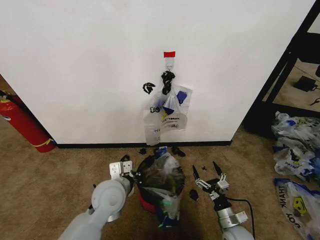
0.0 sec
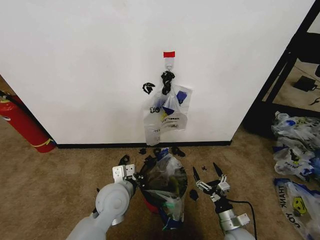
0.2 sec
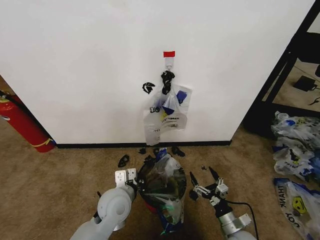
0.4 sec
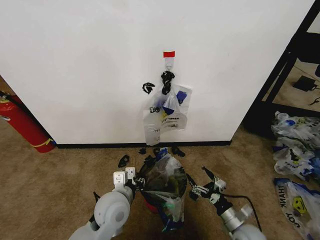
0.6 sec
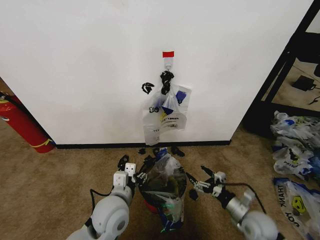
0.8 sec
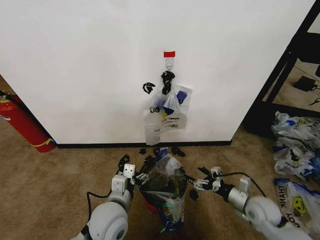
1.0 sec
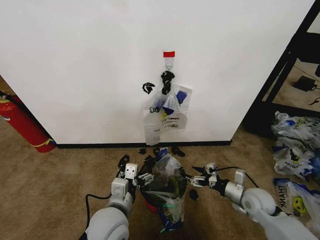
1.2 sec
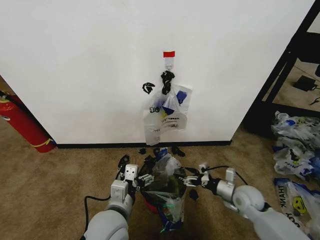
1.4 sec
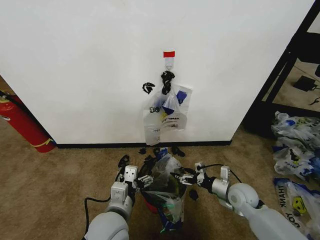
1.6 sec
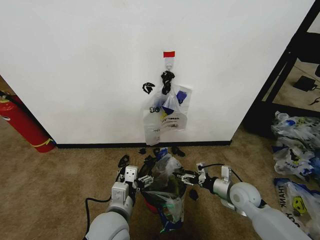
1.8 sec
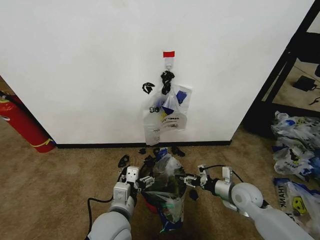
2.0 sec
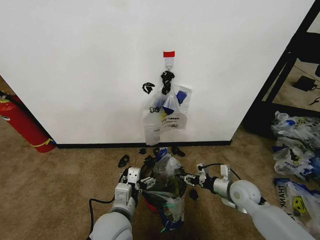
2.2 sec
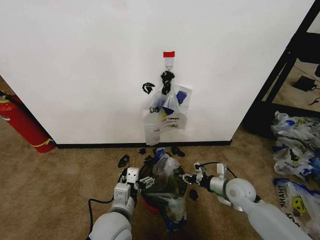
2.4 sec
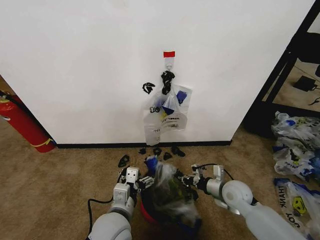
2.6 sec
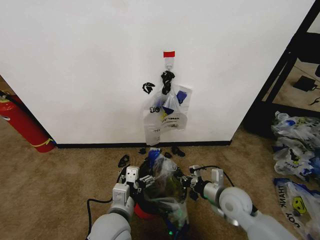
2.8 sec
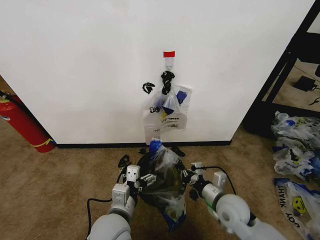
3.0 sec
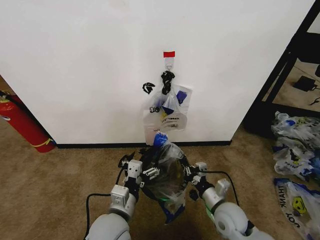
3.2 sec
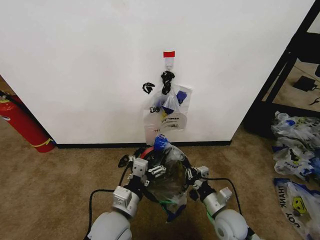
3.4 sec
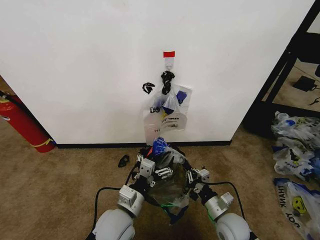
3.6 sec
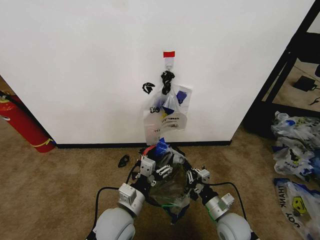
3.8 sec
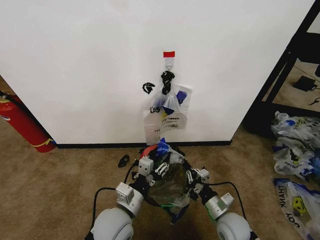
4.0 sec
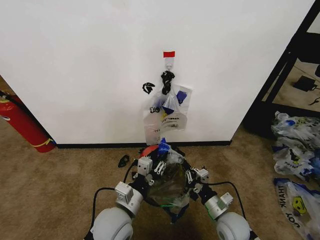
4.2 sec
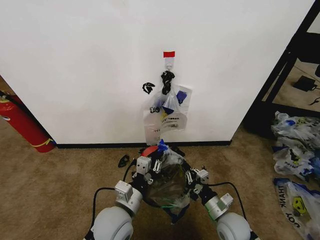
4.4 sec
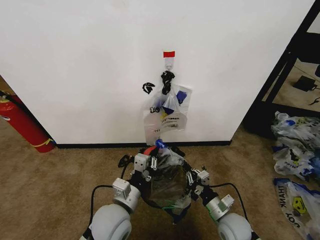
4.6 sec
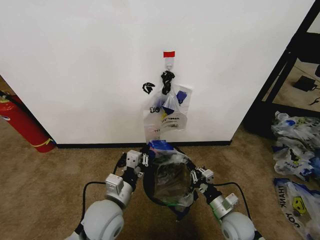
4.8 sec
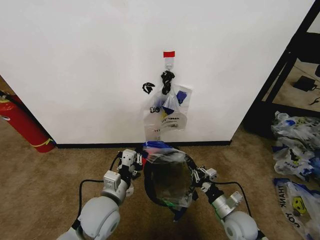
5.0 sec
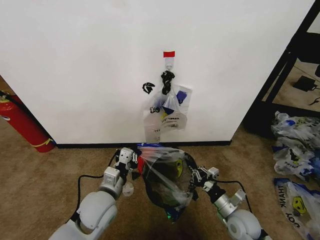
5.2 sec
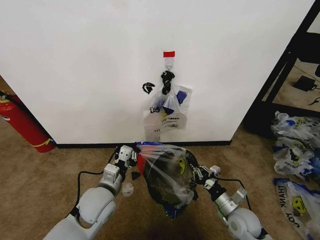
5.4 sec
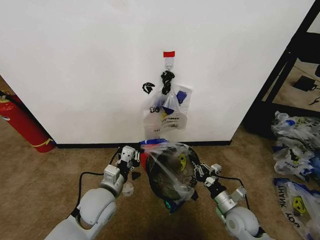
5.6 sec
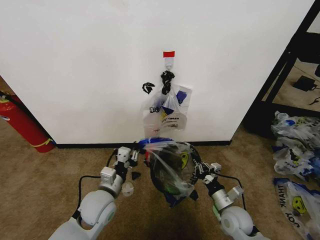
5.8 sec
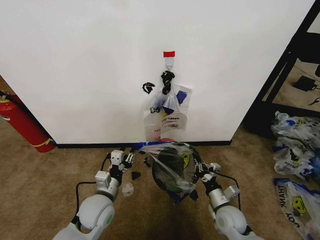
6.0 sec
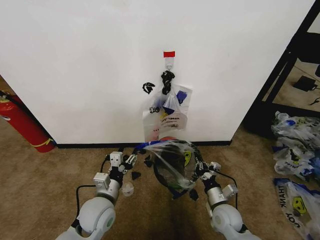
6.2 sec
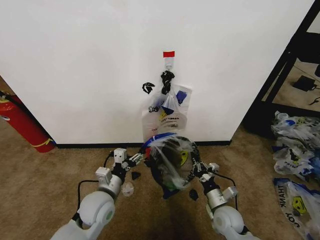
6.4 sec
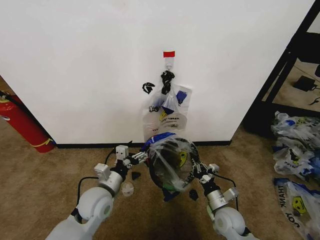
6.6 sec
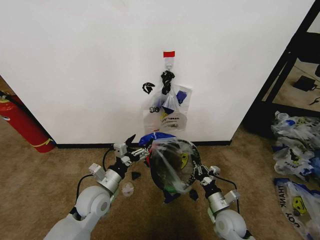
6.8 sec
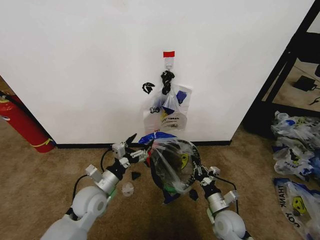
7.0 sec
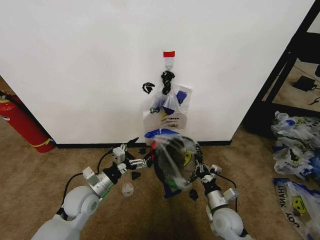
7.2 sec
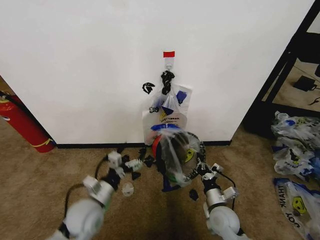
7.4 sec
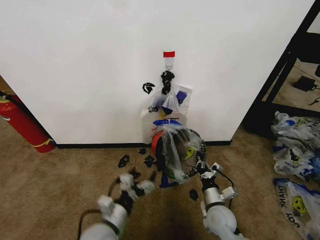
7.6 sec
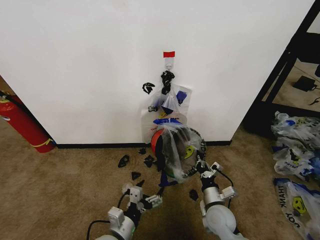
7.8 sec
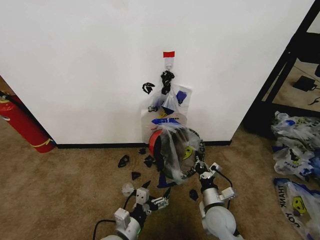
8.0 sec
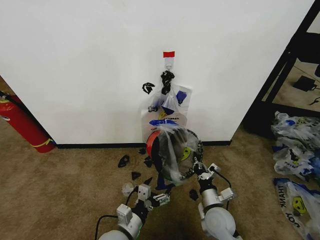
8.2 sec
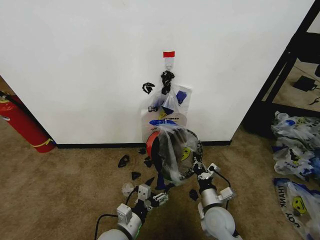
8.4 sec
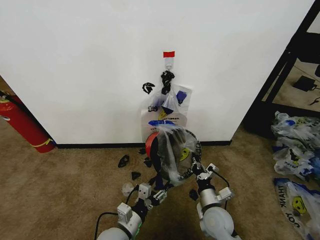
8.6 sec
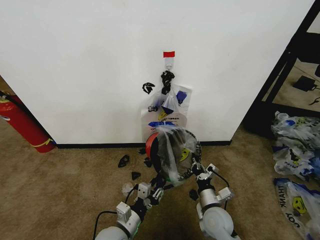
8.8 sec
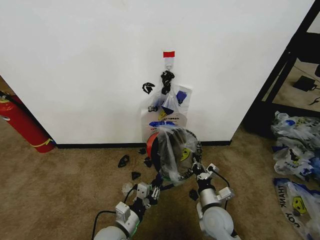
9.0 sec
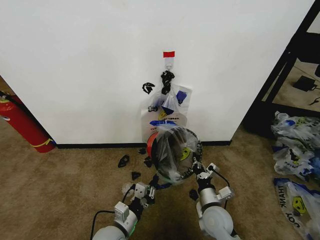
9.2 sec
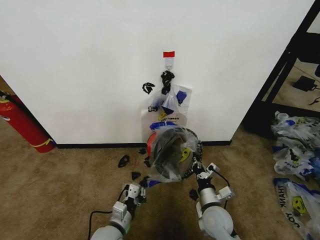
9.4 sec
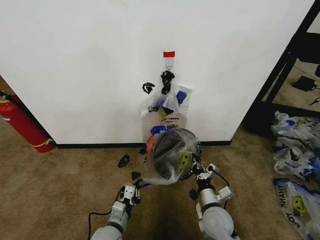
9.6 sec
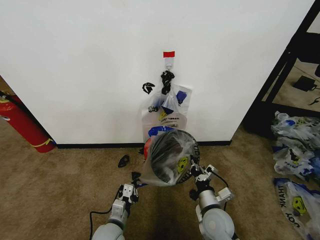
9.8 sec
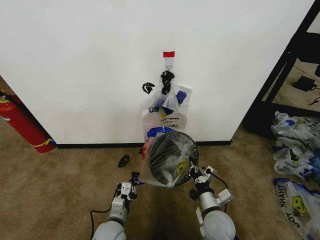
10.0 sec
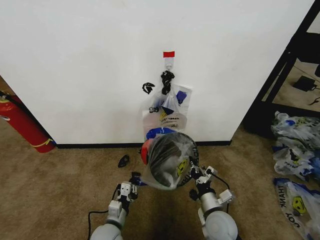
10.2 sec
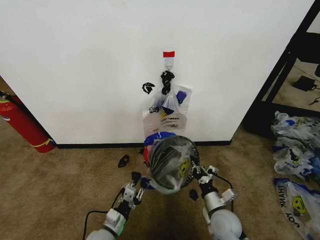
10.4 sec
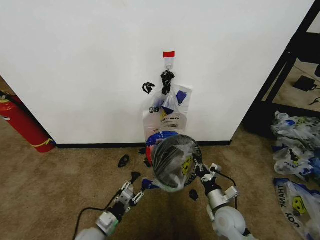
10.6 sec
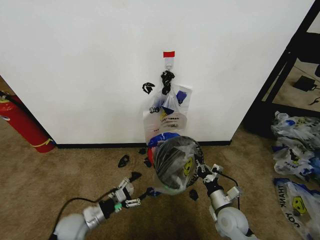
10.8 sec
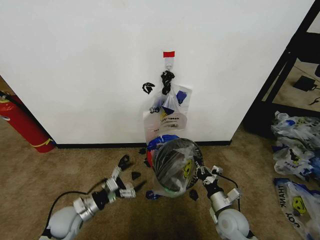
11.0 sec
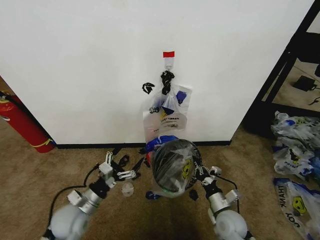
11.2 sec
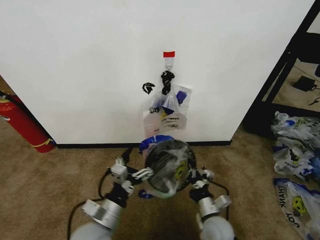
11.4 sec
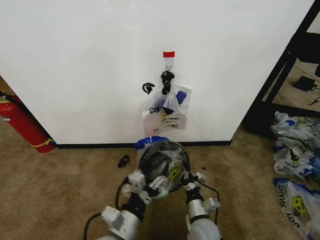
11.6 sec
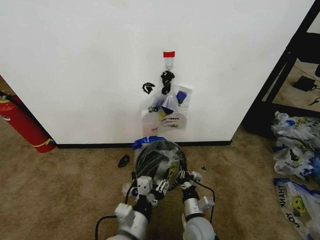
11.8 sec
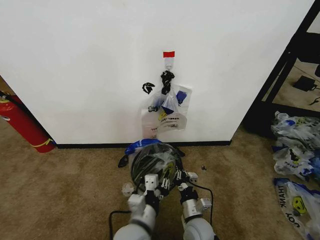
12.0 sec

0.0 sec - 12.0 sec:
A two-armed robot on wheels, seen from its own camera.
Task of the whole recording: Pick up the garbage bag from the wall and place it over the trash bin.
0.0 sec - 1.6 sec: The left gripper travels backward by roughly 10 cm, and opens its fingers, while the right gripper shifts approximately 15 cm forward and upward.
1.6 sec - 3.0 sec: The right gripper moves to the left and backward, about 10 cm, and closes.
3.0 sec - 4.4 sec: The left gripper closes; the right gripper shifts approximately 5 cm downward.
4.4 sec - 6.0 sec: The left gripper moves to the left and forward, roughly 10 cm.
6.0 sec - 7.6 sec: The left gripper travels backward by roughly 10 cm, and opens its fingers.
7.6 sec - 9.0 sec: The left gripper shifts by approximately 5 cm, and closes its fingers.
9.0 sec - 10.4 sec: The left gripper moves downward and to the left, roughly 10 cm.
10.4 sec - 12.0 sec: The right gripper heads to the left, covering roughly 10 cm. Meanwhile the left gripper is displaced upward and to the right by roughly 20 cm, and opens, then closes once more.

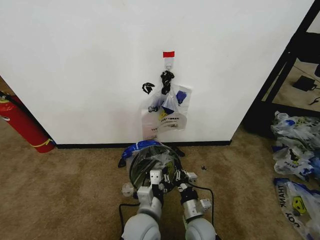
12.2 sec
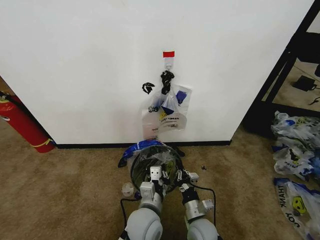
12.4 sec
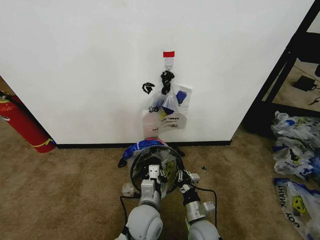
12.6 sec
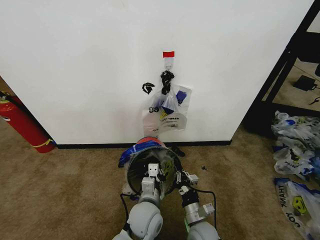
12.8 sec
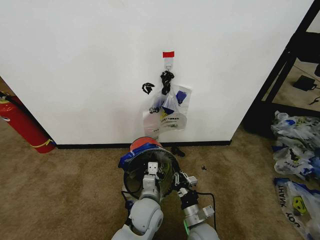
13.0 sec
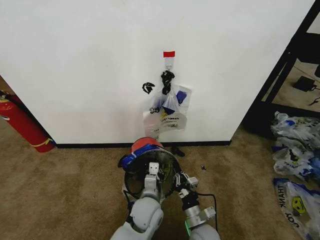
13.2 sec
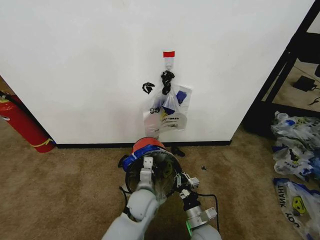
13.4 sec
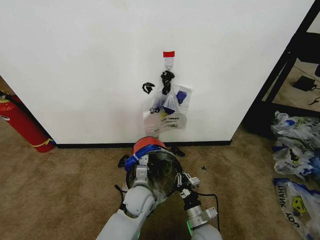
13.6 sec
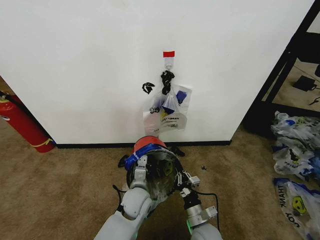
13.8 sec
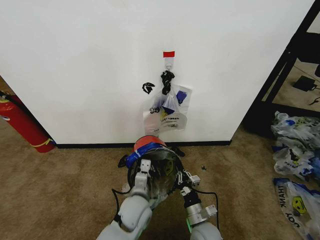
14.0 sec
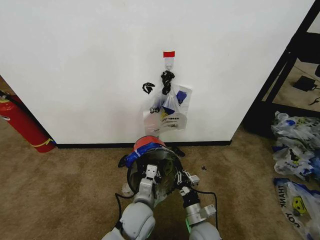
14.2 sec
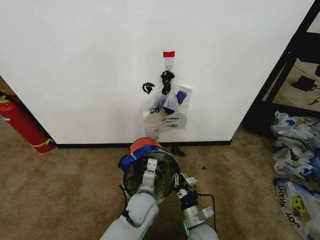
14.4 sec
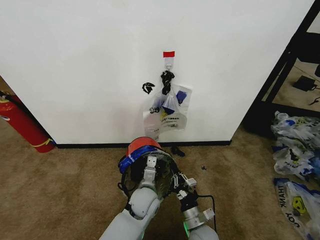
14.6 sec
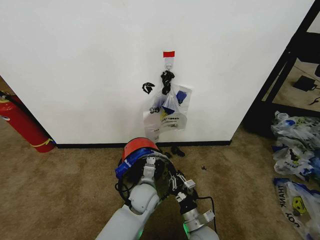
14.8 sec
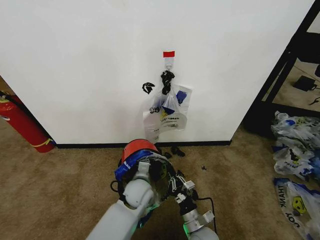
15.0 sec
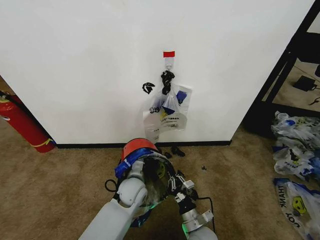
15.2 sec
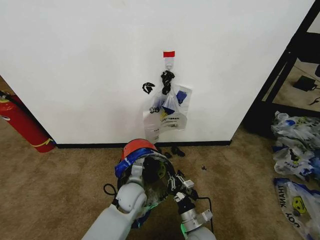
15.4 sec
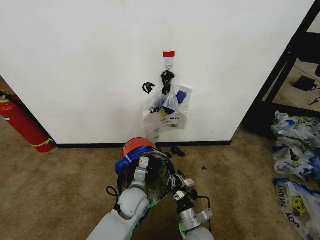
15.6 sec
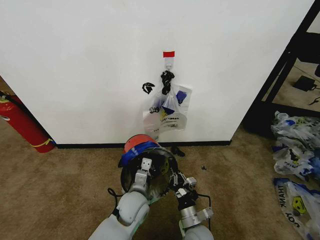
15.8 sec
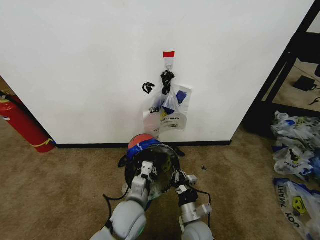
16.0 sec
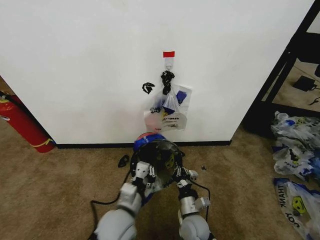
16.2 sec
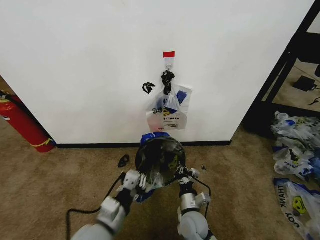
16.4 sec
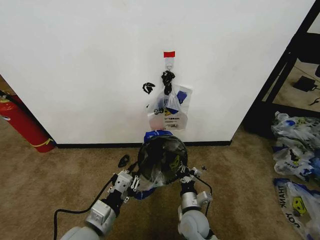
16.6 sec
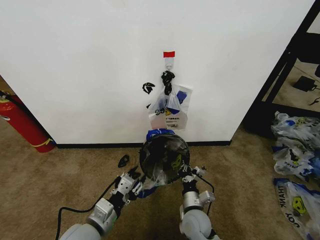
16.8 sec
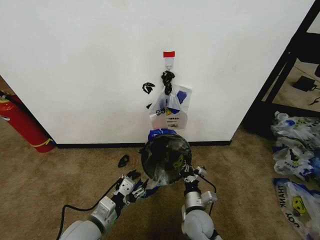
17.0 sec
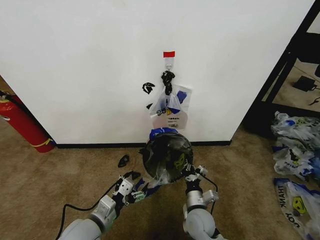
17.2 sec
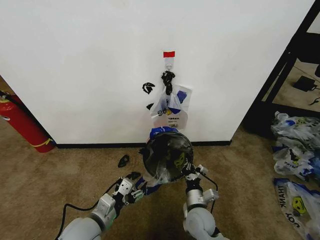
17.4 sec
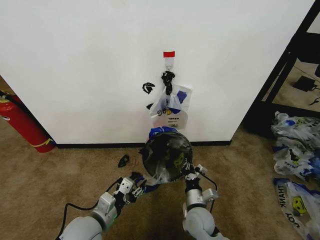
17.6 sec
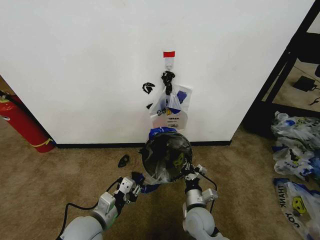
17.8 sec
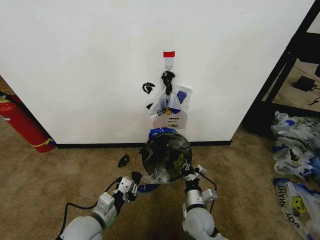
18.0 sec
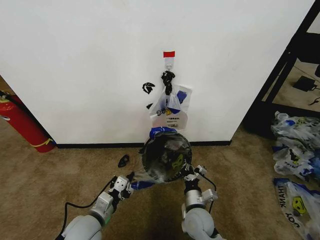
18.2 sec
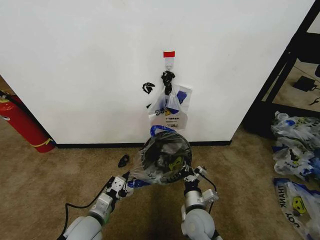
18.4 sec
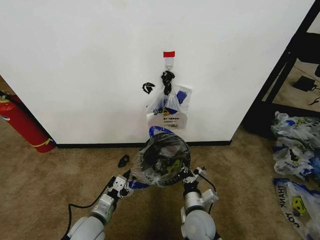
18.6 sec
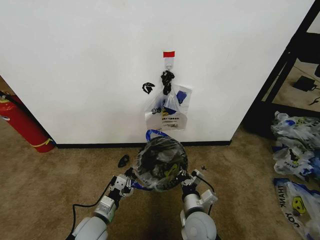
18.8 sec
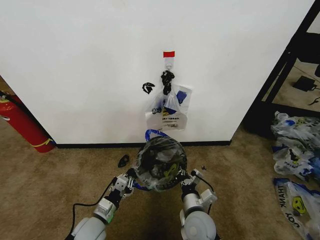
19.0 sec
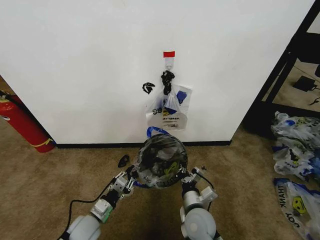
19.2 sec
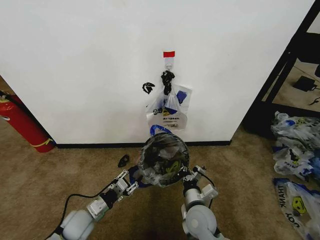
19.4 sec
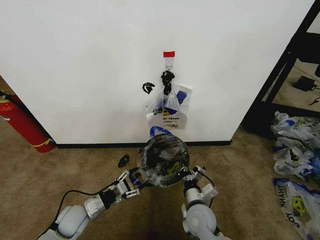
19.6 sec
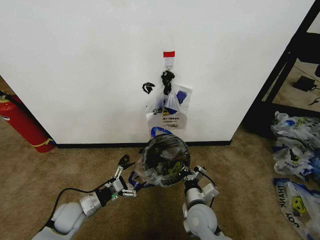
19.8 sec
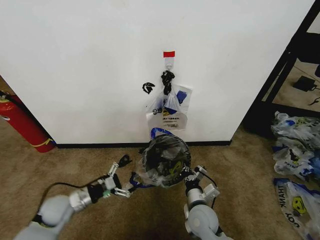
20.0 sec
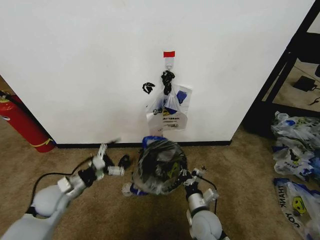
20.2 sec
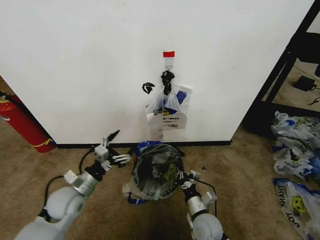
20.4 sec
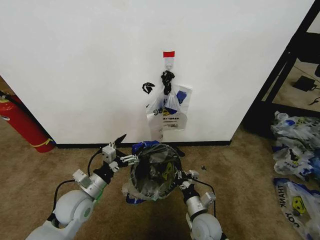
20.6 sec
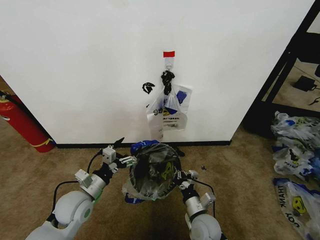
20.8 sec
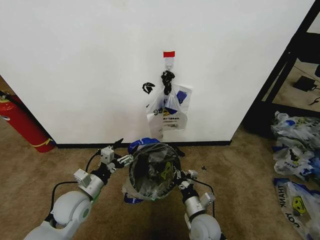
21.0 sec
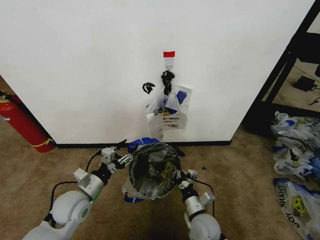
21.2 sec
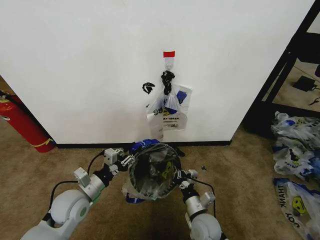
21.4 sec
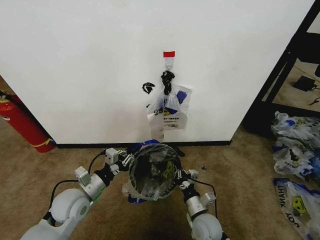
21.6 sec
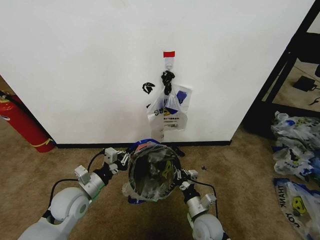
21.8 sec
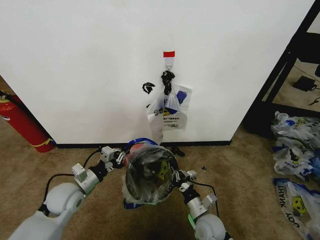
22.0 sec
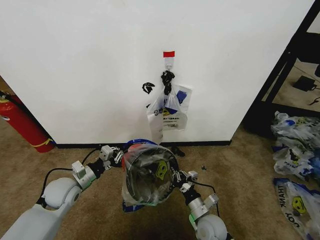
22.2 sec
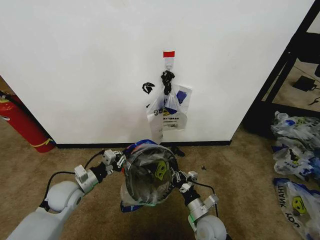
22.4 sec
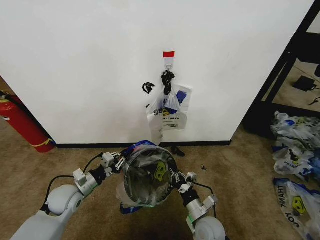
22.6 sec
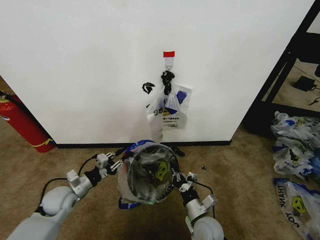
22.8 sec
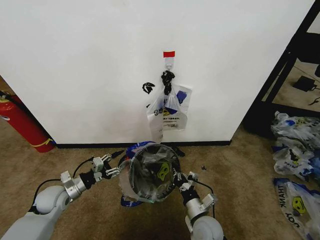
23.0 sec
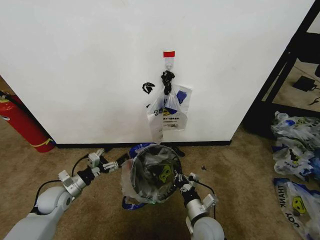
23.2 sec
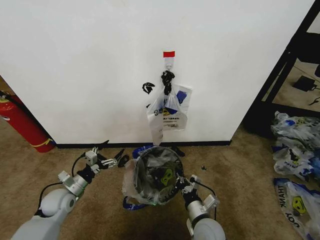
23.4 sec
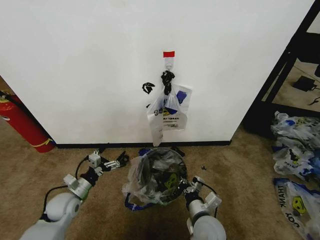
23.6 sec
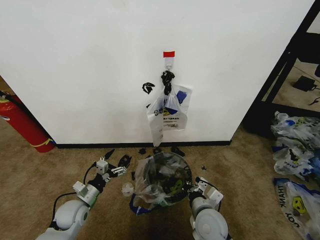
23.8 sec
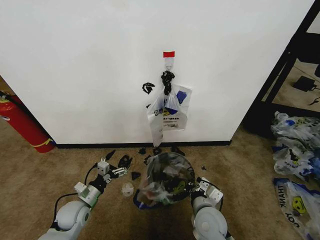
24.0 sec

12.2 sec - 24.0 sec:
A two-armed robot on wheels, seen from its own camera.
Task of the whole recording: Pick up the garbage bag from the wall and place it over the trash bin.
12.2 sec - 13.6 sec: The left gripper goes some 10 cm forward.
13.6 sec - 15.2 sec: The left gripper moves approximately 5 cm backward and comes back.
15.2 sec - 16.6 sec: The left gripper is displaced backward, to the left and upward by approximately 20 cm, while the right gripper ends up some 5 cm from where it was.
16.6 sec - 18.2 sec: The left gripper moves downward, about 5 cm, and opens and closes again.
18.2 sec - 19.6 sec: The left gripper moves to the left, downward and forward, roughly 10 cm, and opens its fingers.
19.6 sec - 21.0 sec: The right gripper shifts by about 5 cm. Meanwhile the left gripper travels upward by roughly 10 cm.
21.0 sec - 22.6 sec: The left gripper shifts roughly 5 cm to the left, and closes.
22.6 sec - 24.0 sec: The left gripper is displaced downward by approximately 5 cm, and opens its fingers; the right gripper goes some 5 cm upward.
